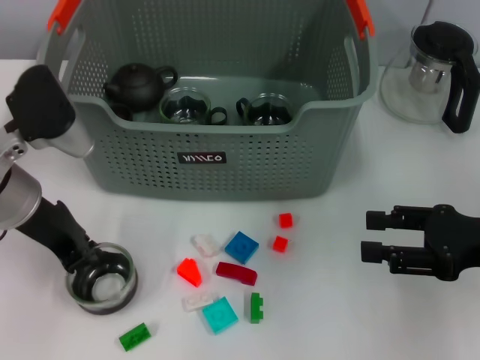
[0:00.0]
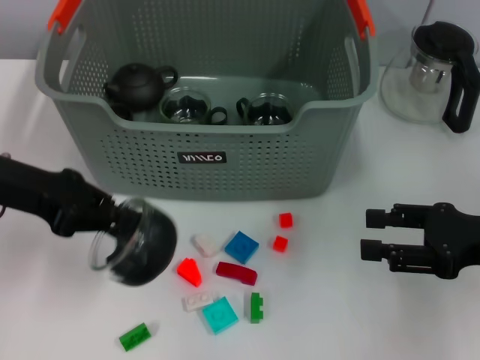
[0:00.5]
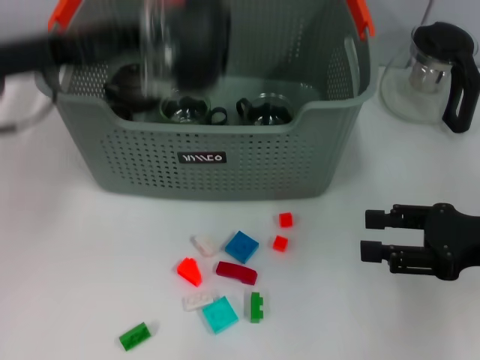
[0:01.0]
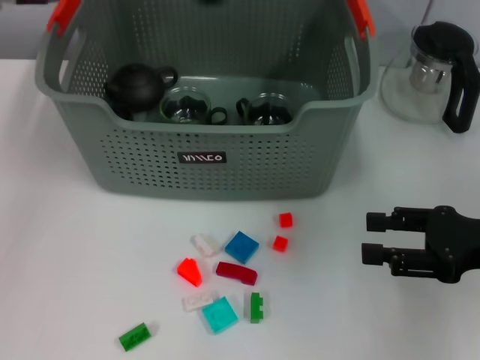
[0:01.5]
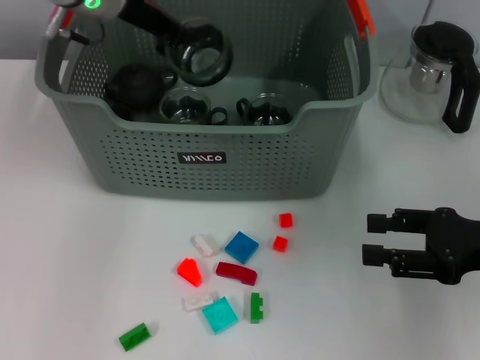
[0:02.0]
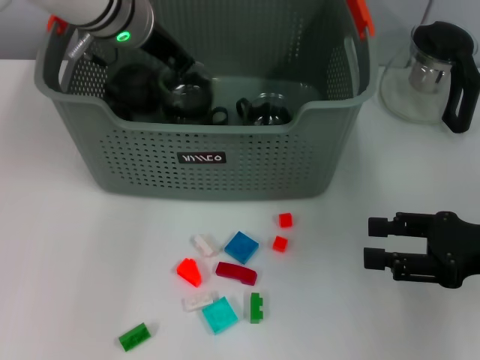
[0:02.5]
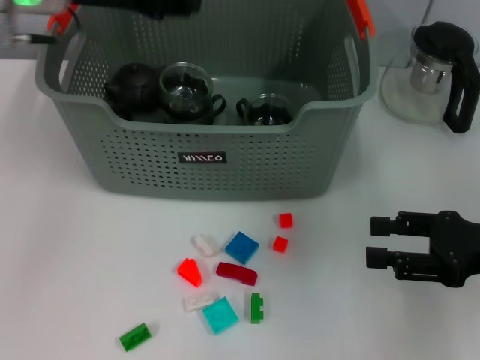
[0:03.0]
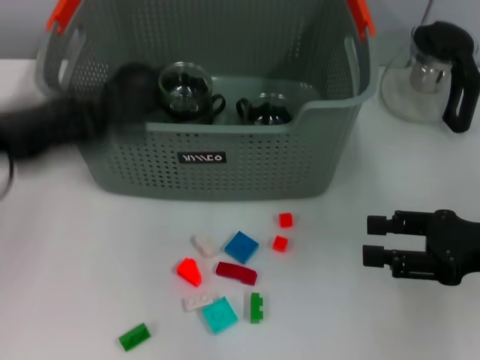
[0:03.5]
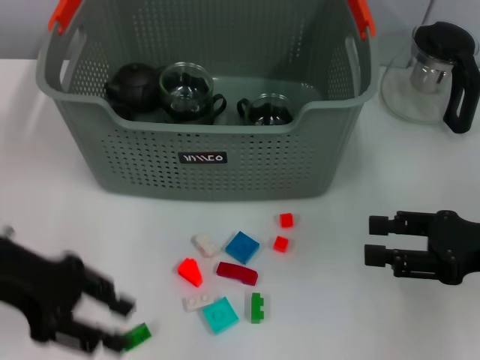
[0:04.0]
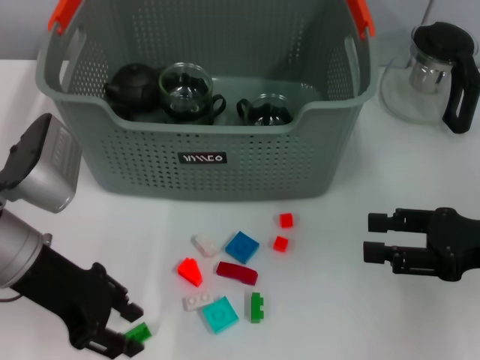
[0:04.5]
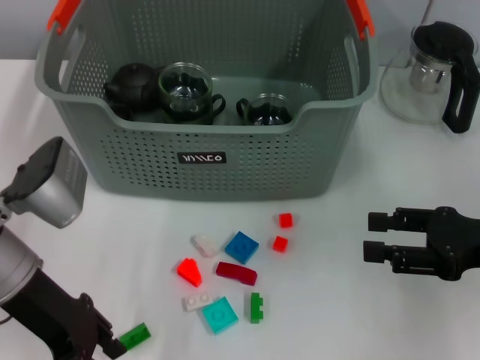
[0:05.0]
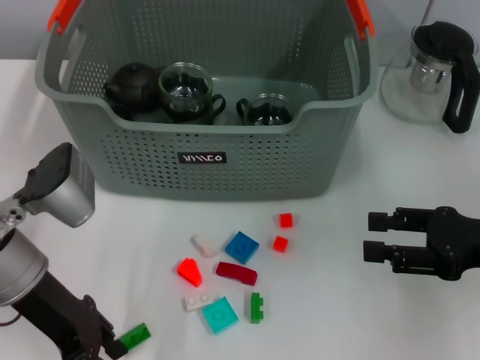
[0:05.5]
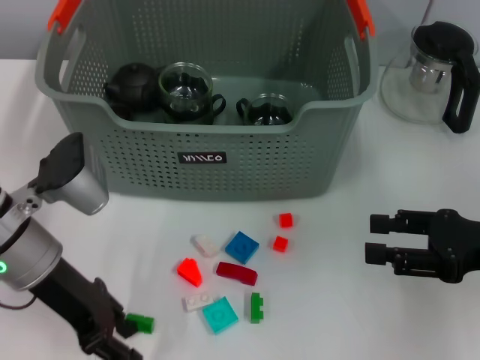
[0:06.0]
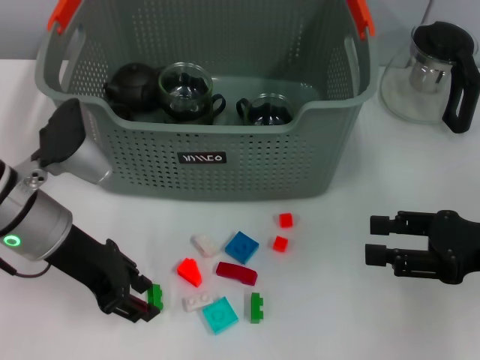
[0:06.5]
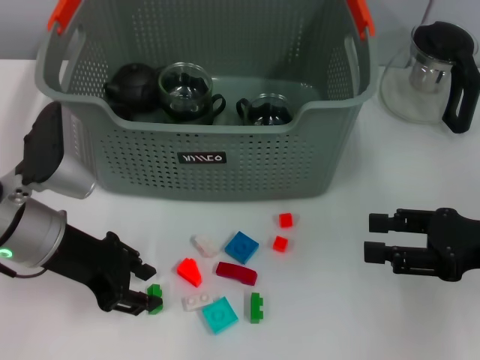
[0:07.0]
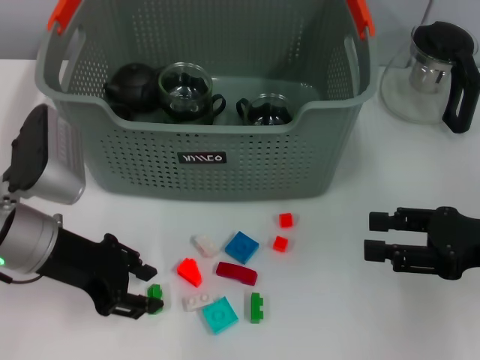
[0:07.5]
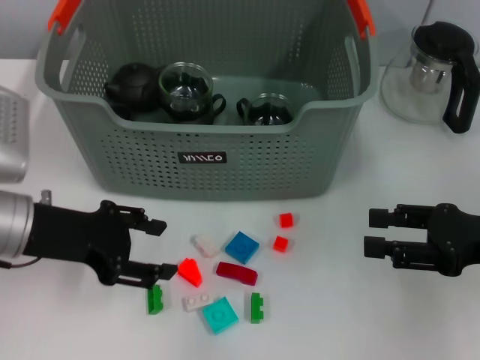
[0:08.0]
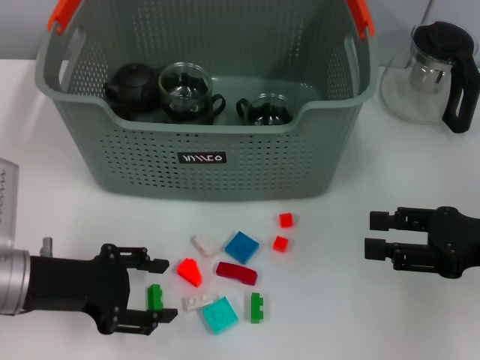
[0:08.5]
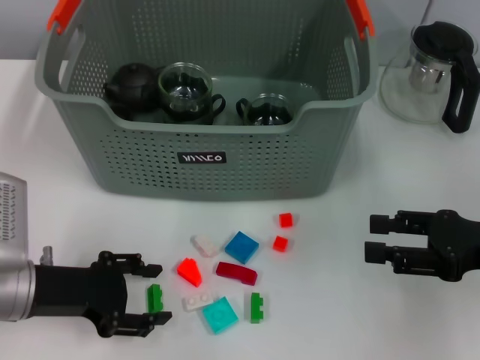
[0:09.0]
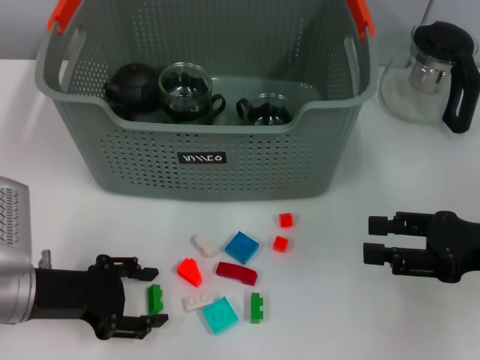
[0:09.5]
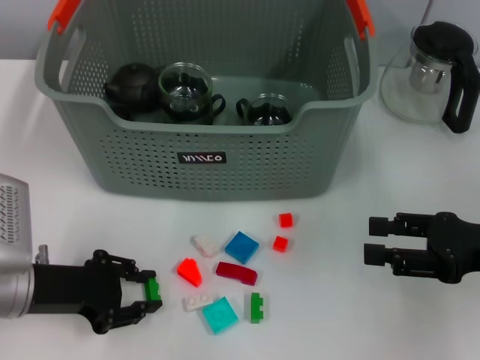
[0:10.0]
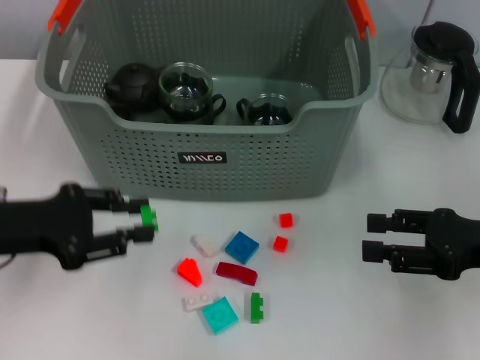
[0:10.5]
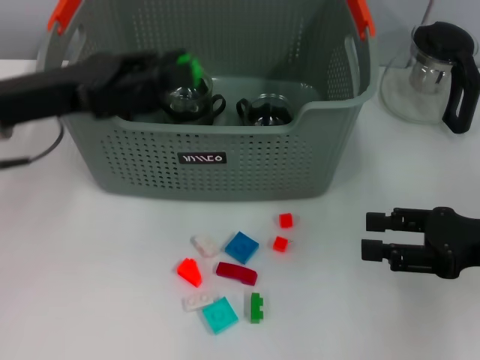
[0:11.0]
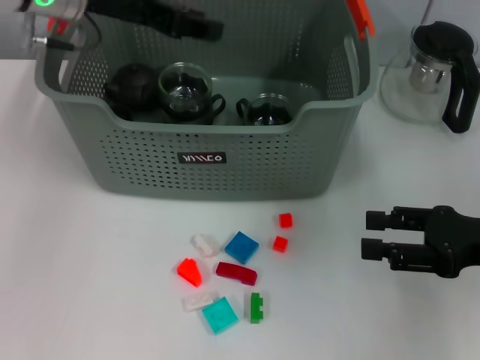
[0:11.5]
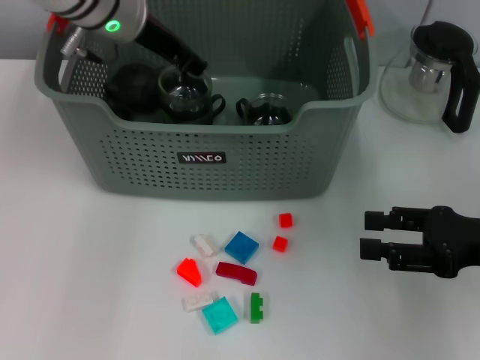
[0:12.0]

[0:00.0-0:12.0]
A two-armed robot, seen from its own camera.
Task of the whole recording: pick up the teacup on the table and place it into the storage bin, pick up the block on the table and place it into the storage bin.
Step, 0:00.5 to 0:02.5: Place the cup in the storage box with left gripper.
Step, 0:03.0 to 0:09.5: Grasp the green block with left gripper.
0:00.0 to 0:02.0: The left gripper shifts some 20 cm forward, upward and to the right, and closes up.
0:02.0 to 0:04.0: The left gripper travels backward, to the left and downward by some 25 cm, and opens up.
0:04.0 to 0:06.0: The left gripper travels to the right by roughly 5 cm.
0:08.0 to 0:10.0: The left gripper travels downward by some 5 cm.
0:10.0 to 0:12.0: The left gripper shifts about 30 cm forward, upward and to the right.

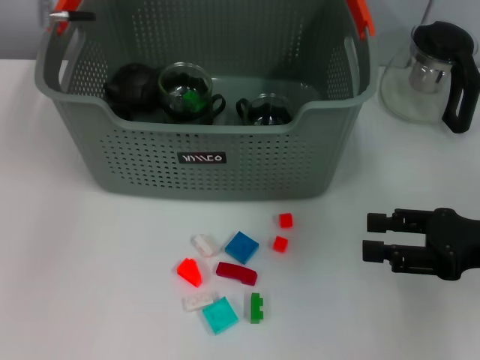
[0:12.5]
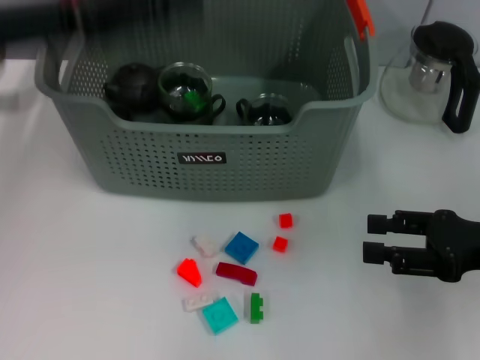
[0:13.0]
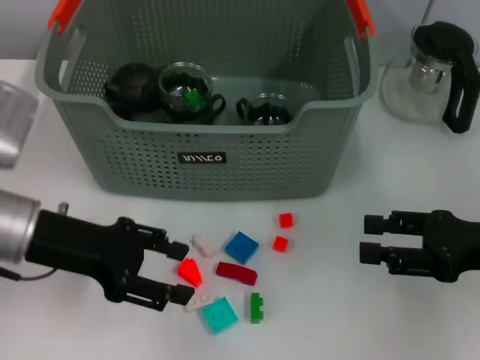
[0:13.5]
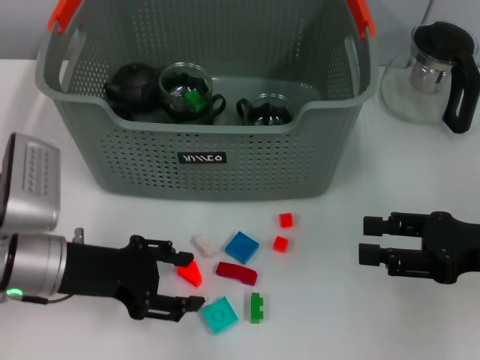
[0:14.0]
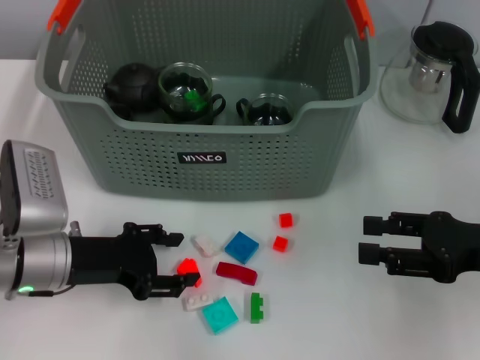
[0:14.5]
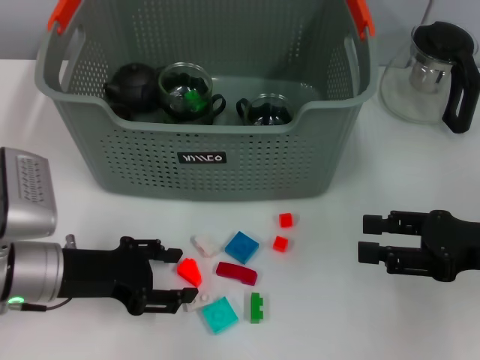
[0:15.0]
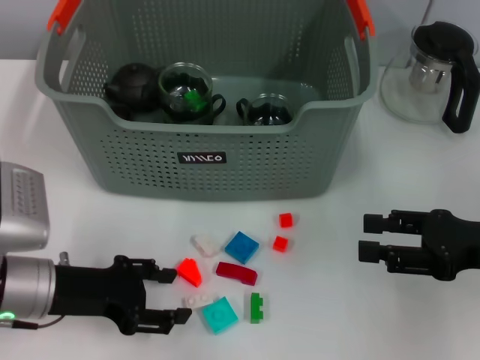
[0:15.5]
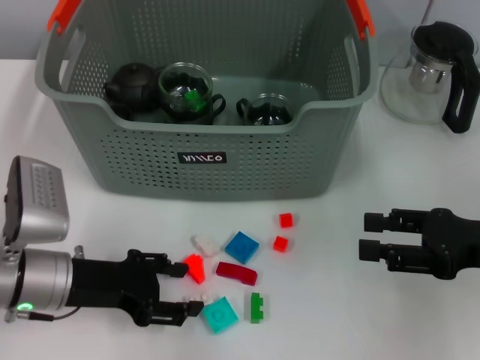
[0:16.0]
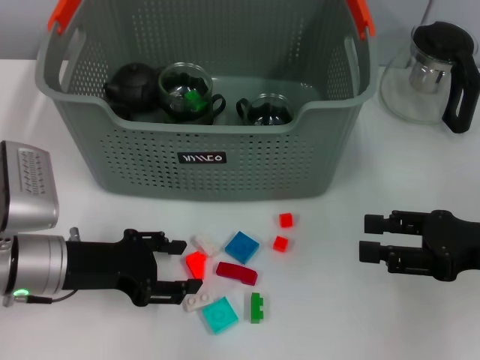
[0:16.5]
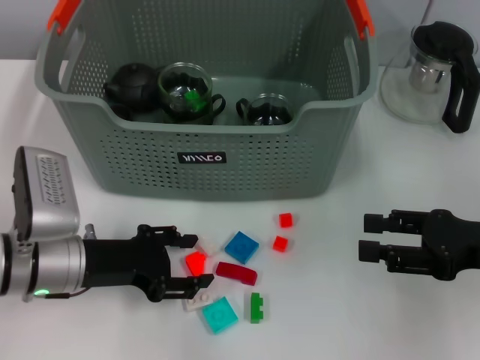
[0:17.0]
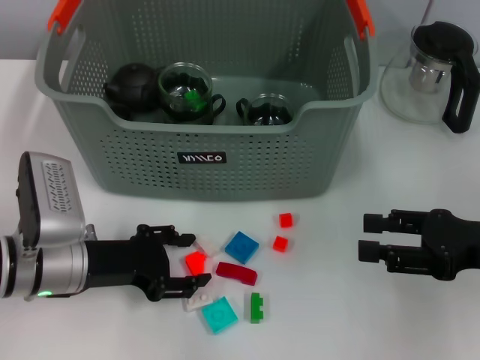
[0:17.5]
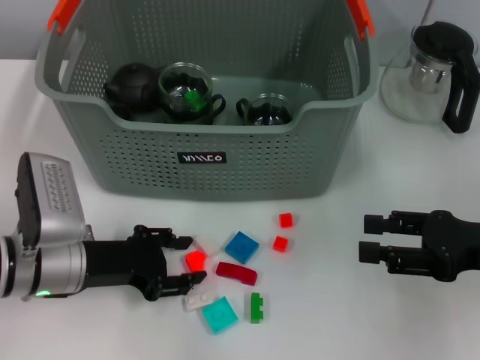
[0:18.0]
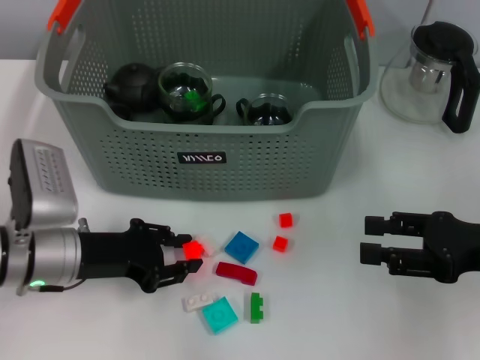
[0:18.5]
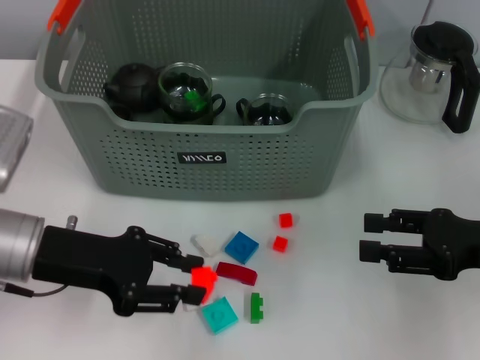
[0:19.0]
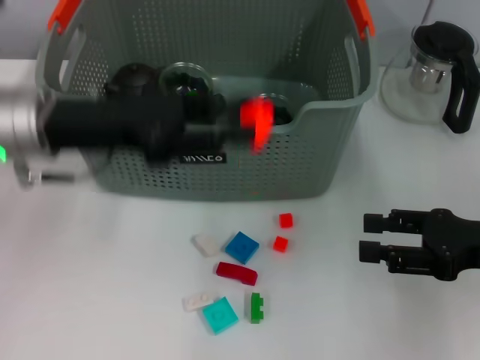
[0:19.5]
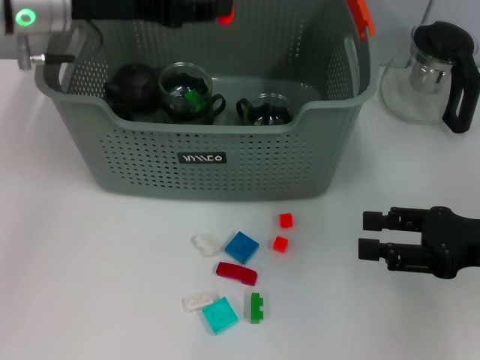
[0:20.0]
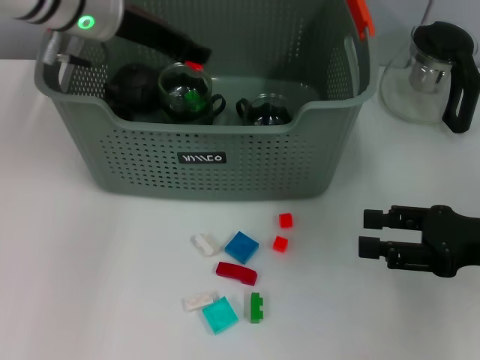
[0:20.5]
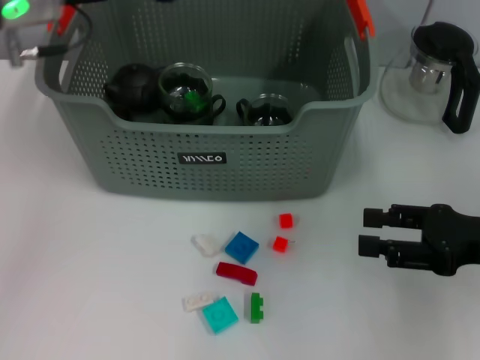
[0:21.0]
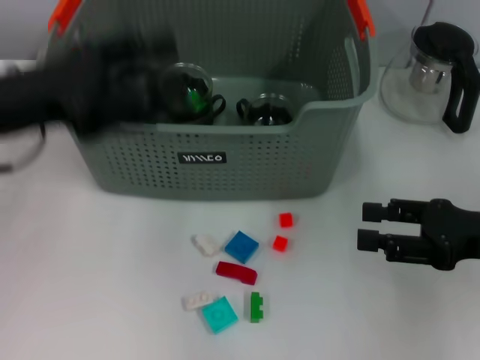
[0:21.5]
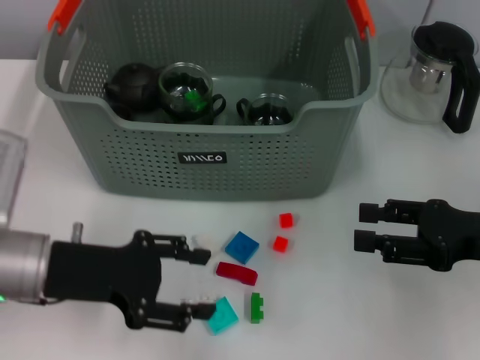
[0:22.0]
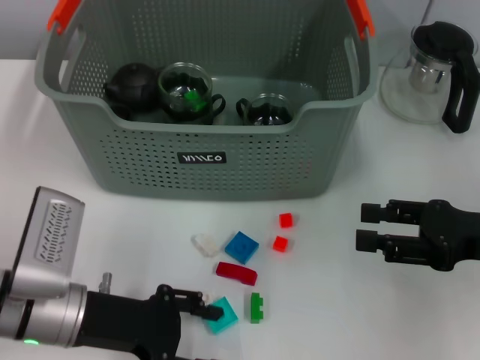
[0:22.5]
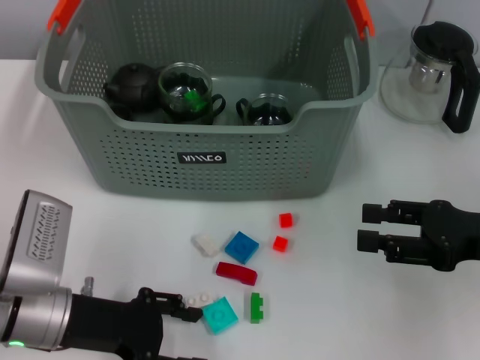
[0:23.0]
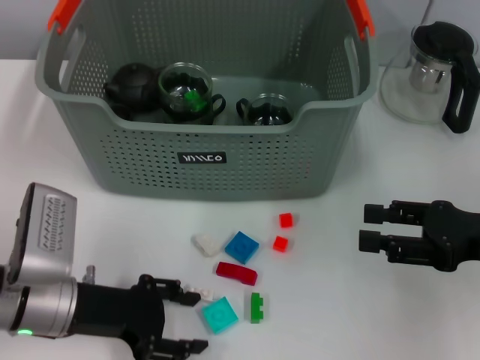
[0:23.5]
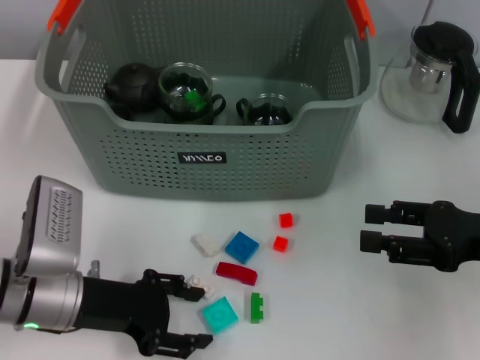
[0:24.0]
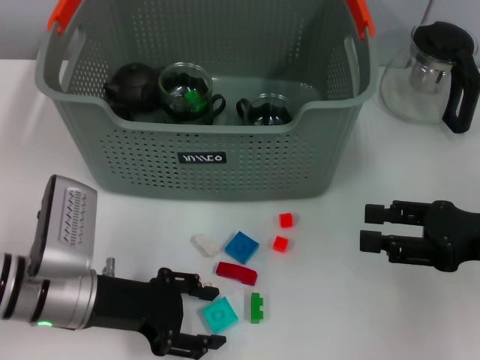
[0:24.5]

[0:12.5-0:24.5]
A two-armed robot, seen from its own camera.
Task of the whole recording: pick up the teacup on the table and place it into the storage bin, pick up the block on the table and place it into the storage bin.
Step, 0:12.5 to 0:18.0: Grasp the orange block with left gripper.
Step, 0:18.5 to 0:20.5: Place the orange block in the storage box with left gripper.
0:12.5 to 0:14.5: The left gripper moves downward and backward, approximately 25 cm.
0:14.5 to 0:16.5: There are only small adjustments of the grippers.
0:16.5 to 0:18.5: The left gripper closes its fingers.
0:18.5 to 0:20.5: The left gripper is displaced upward and forward by some 25 cm.
0:20.5 to 0:22.5: The left gripper is displaced backward and downward by about 25 cm, and opens.
0:22.5 to 0:24.5: The grippers make only small movements.

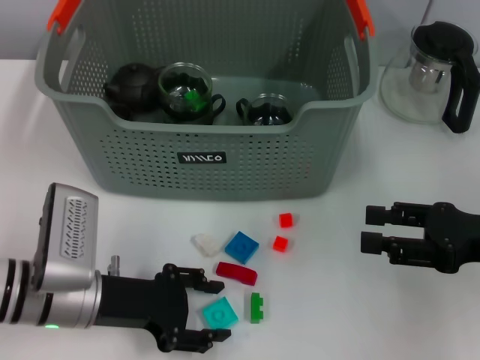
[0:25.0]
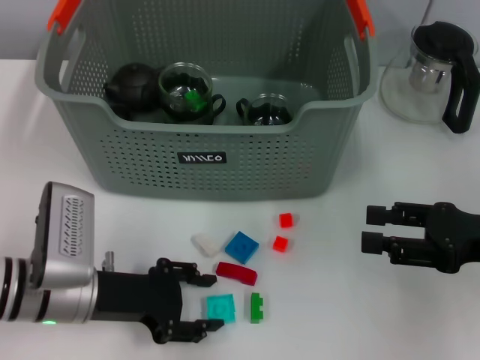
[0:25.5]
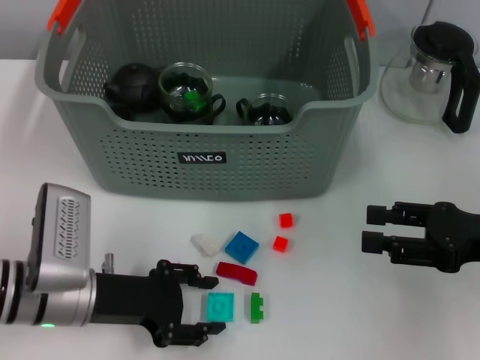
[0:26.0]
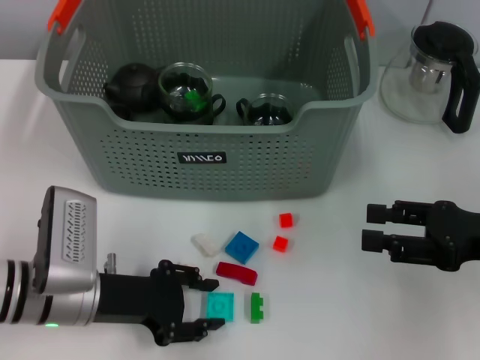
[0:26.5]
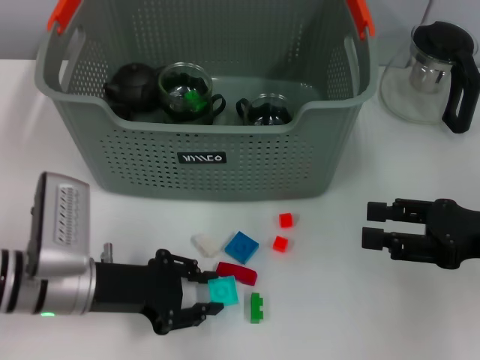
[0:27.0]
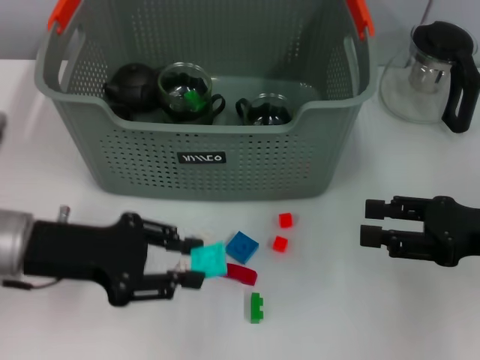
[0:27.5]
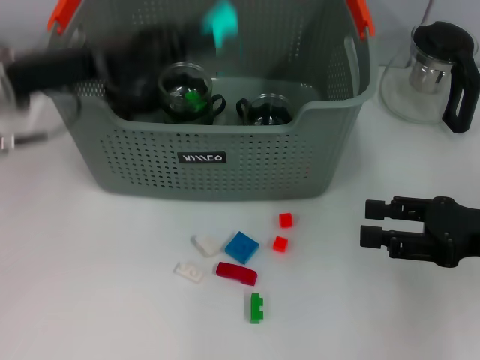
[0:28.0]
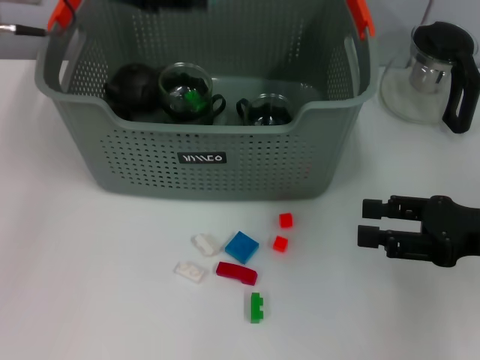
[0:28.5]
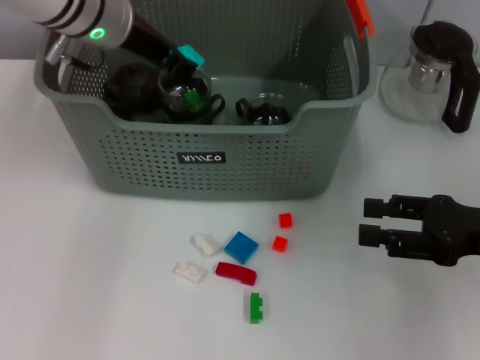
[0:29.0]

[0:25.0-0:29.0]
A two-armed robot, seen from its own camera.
Task of the whole recording: pick up the teacup on the table and place it into the storage bin, pick up the block on the table and place it into the storage bin.
0:25.0 to 0:27.0: Neither gripper changes place.
0:27.0 to 0:29.0: The left gripper heads upward and forward, covering approximately 25 cm.
